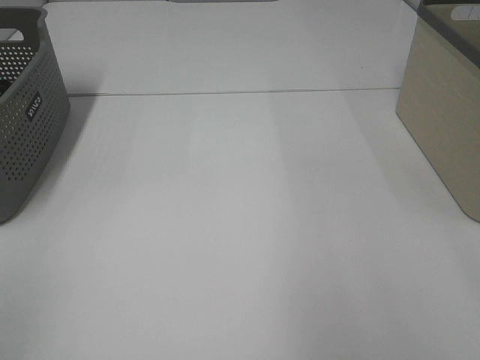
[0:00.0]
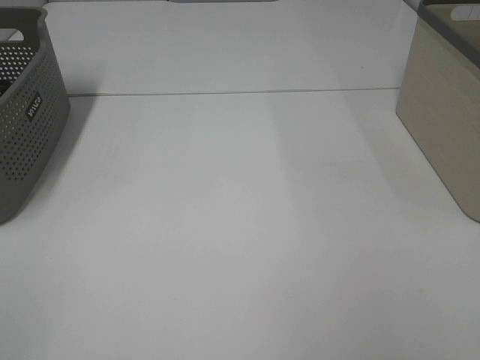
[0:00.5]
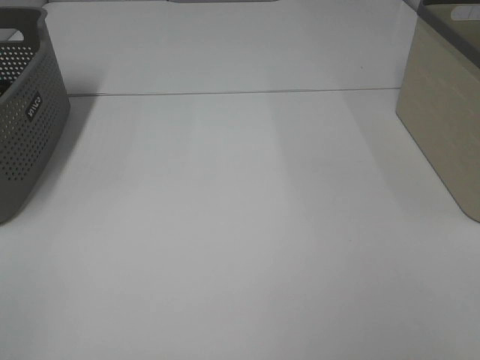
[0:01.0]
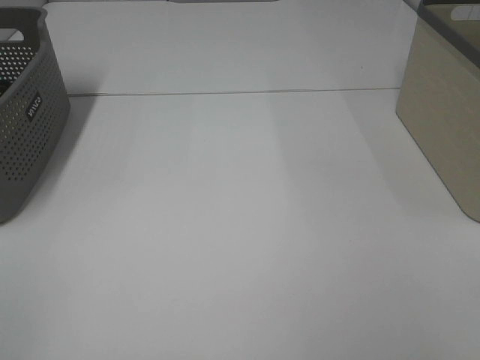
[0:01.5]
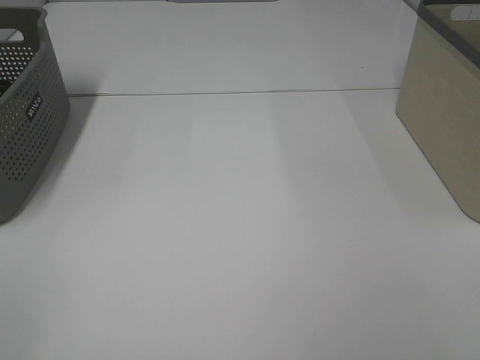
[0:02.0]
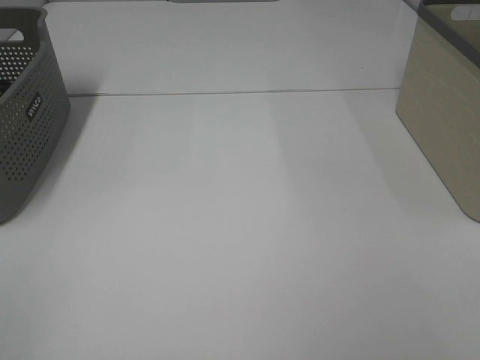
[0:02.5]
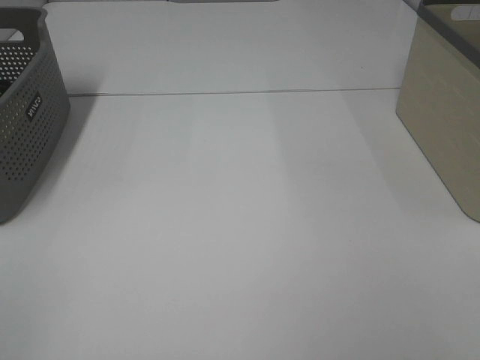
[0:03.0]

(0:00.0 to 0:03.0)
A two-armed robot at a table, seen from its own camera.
0:01.5 - 0:03.0: Both grippers stay put.

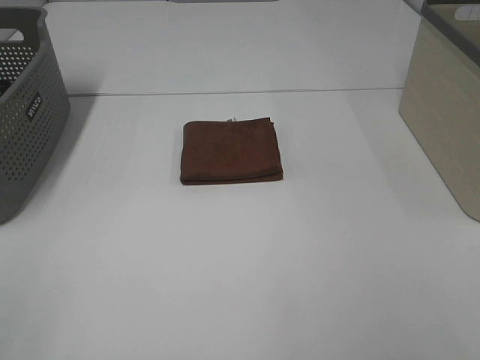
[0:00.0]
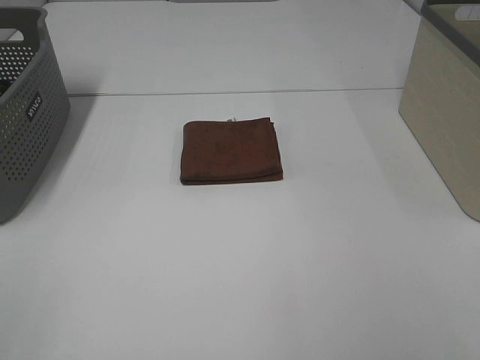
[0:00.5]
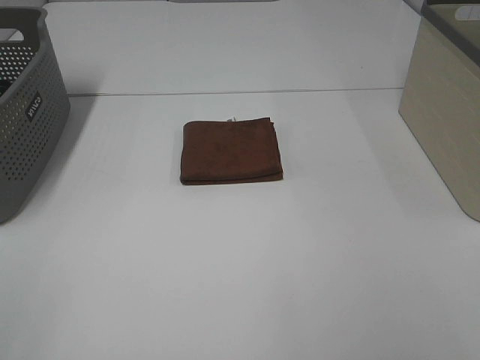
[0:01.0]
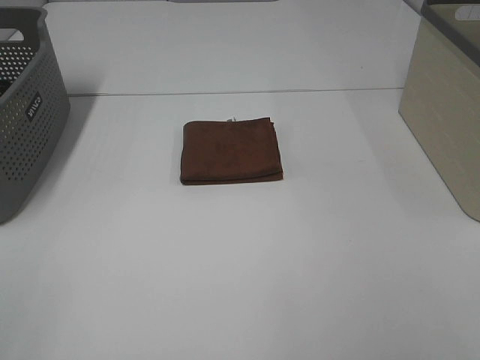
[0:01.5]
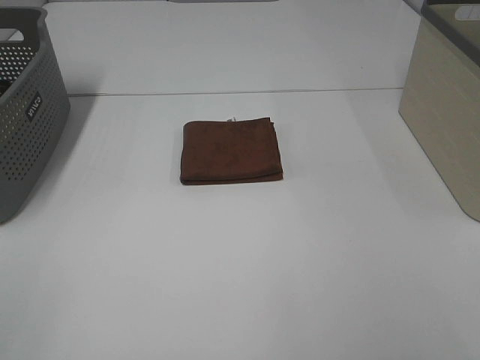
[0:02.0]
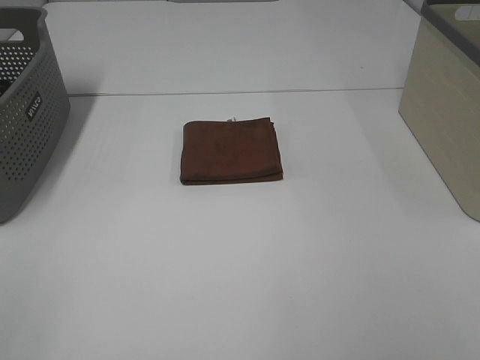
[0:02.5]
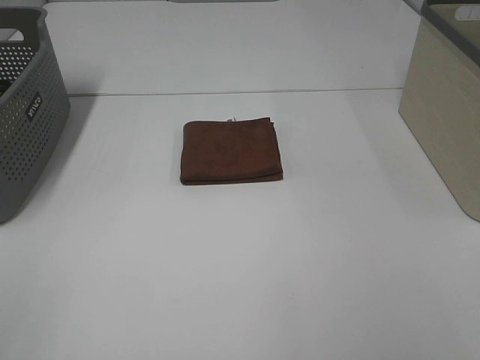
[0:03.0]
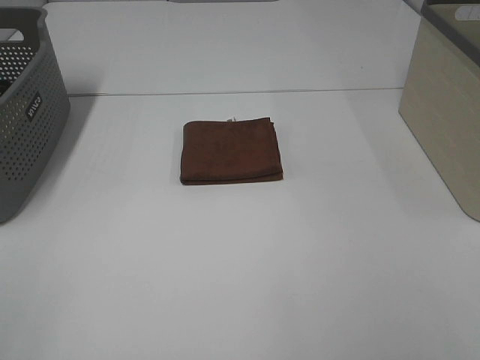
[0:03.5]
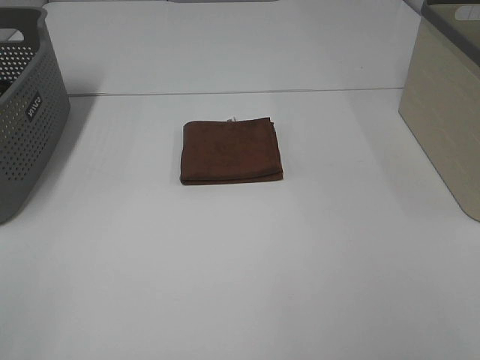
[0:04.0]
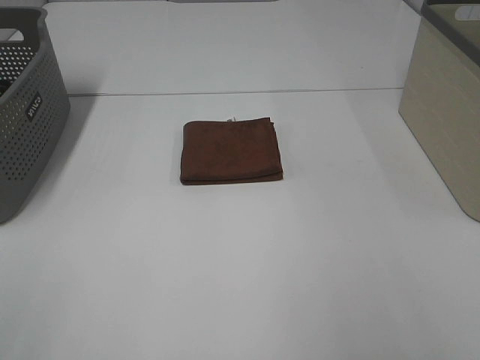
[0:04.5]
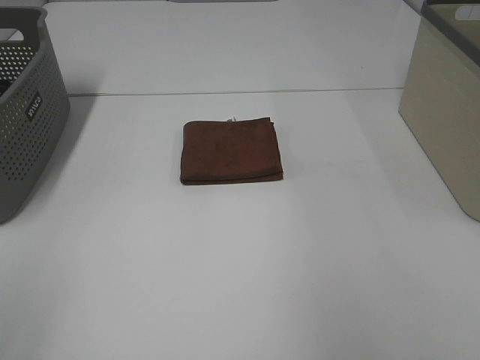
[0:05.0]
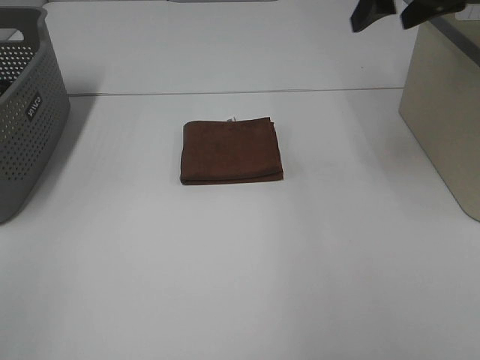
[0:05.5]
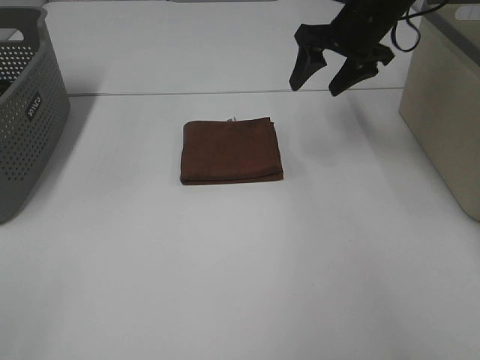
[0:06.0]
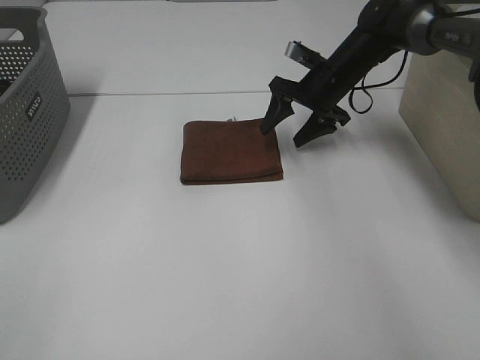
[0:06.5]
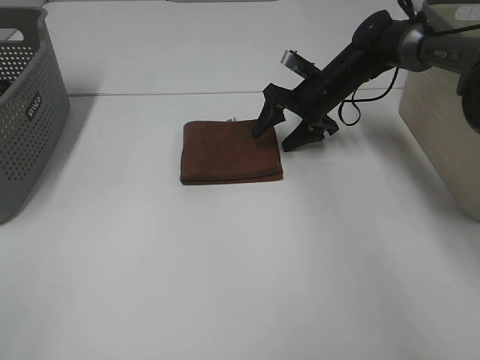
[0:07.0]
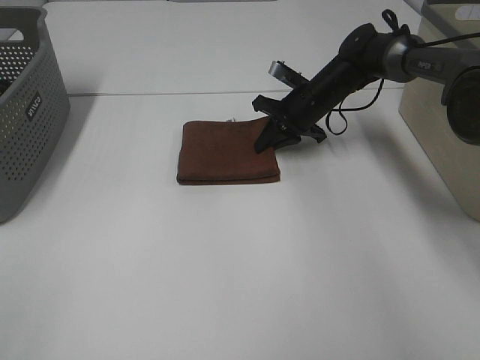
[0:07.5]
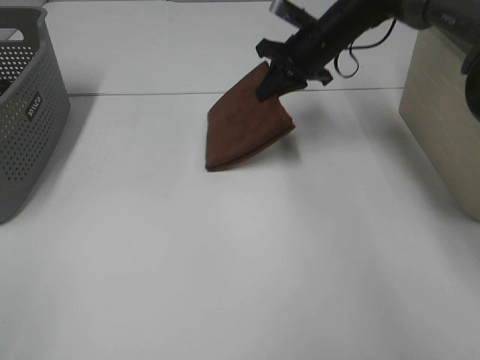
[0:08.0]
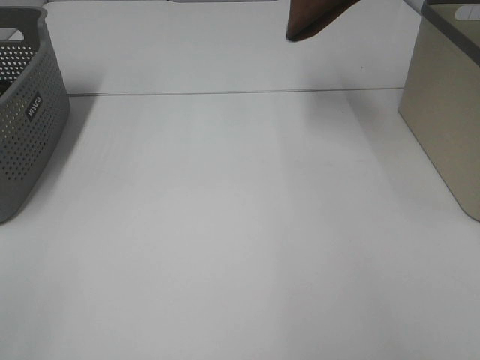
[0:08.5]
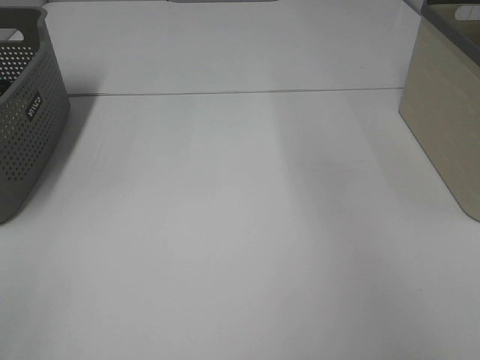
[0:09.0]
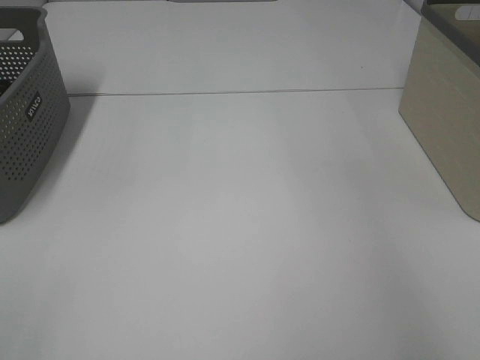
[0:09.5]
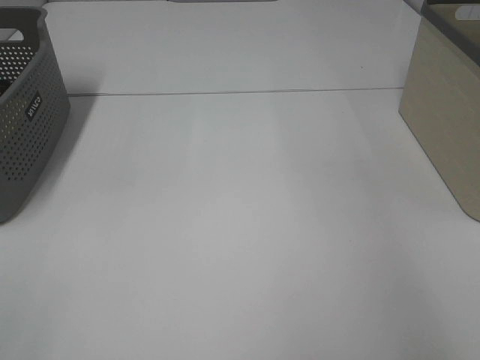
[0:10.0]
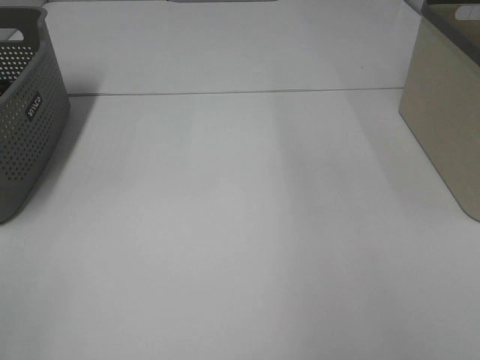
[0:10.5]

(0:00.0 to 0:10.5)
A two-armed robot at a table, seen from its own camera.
Step, 0:00.0 - 0:07.0: Right hand: grab the folded brown towel.
Step, 0:07.5 - 0:10.0: Right hand: place the brown towel in right basket.
0:00.0 - 0:04.0: The two grippers keep their place.
0:04.0 - 0:06.5: The right gripper heads forward, covering about 50 cm.
0:06.5 - 0:08.5: The right gripper is displaced upward by approximately 30 cm, and closes.
0:08.5 - 0:10.5: The right gripper moves to the right and backward, about 10 cm, and opens.
